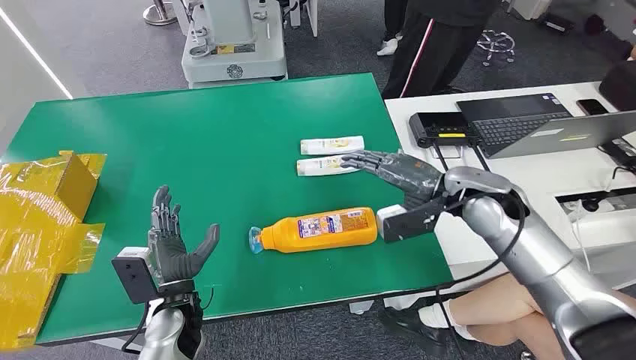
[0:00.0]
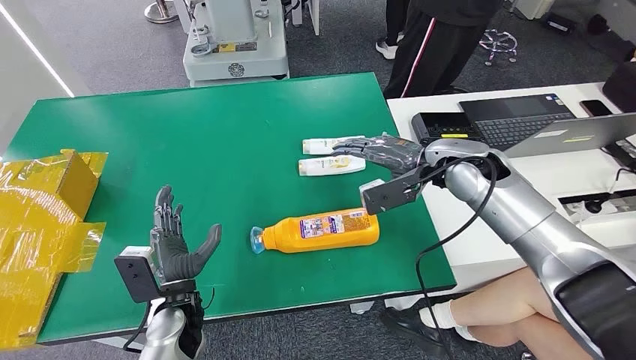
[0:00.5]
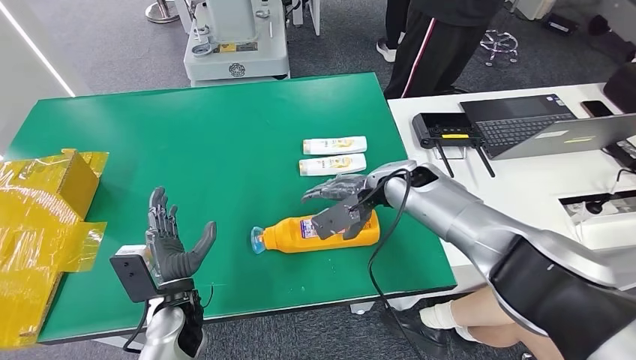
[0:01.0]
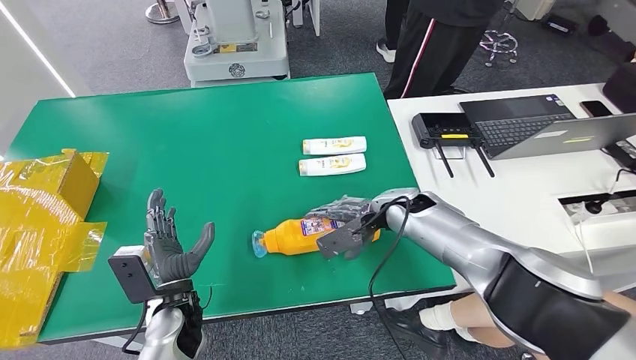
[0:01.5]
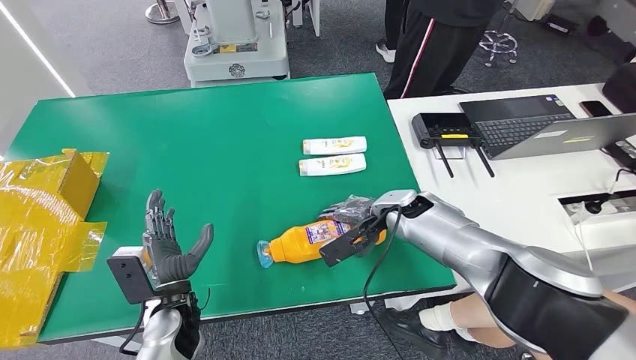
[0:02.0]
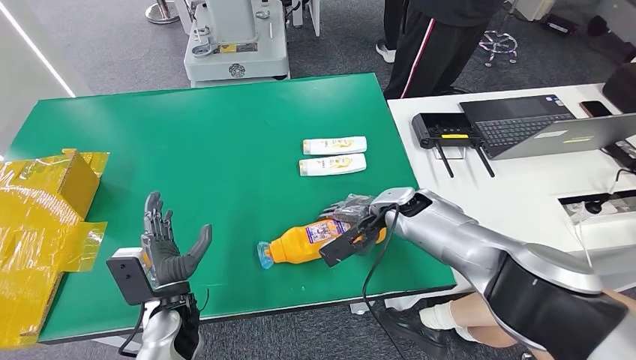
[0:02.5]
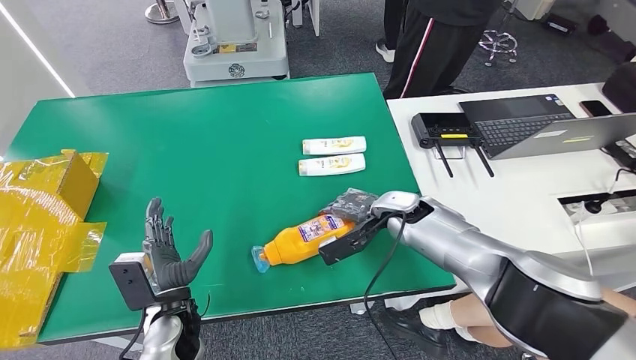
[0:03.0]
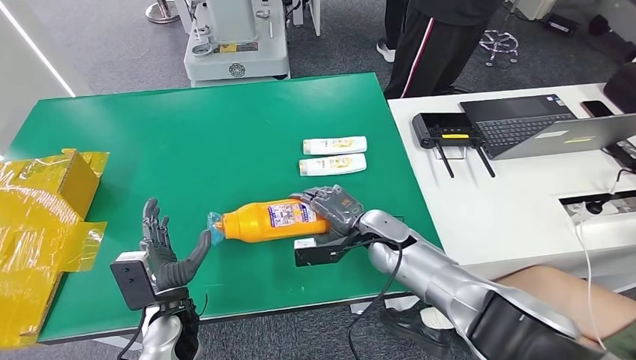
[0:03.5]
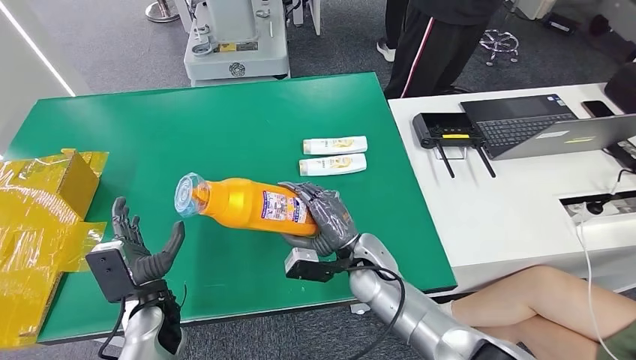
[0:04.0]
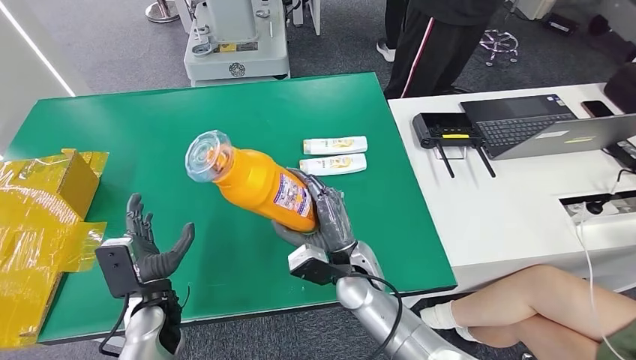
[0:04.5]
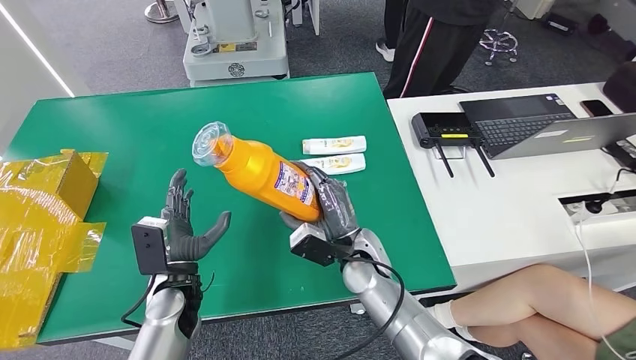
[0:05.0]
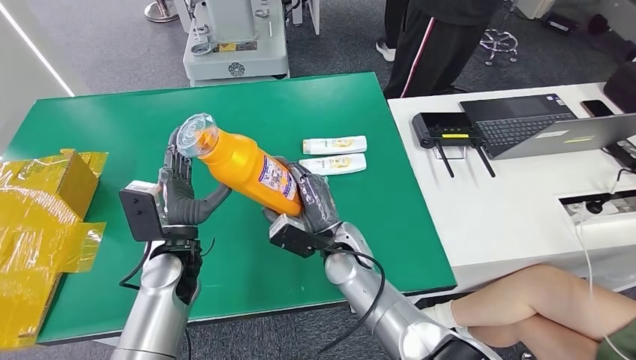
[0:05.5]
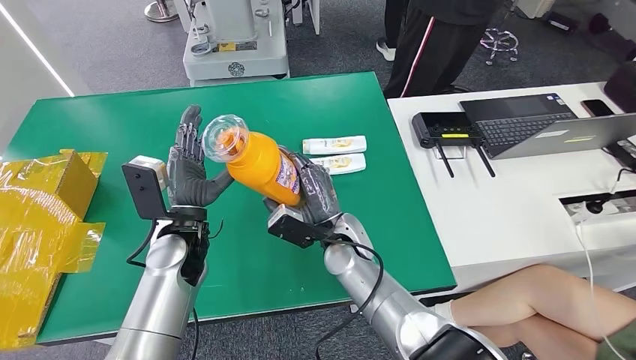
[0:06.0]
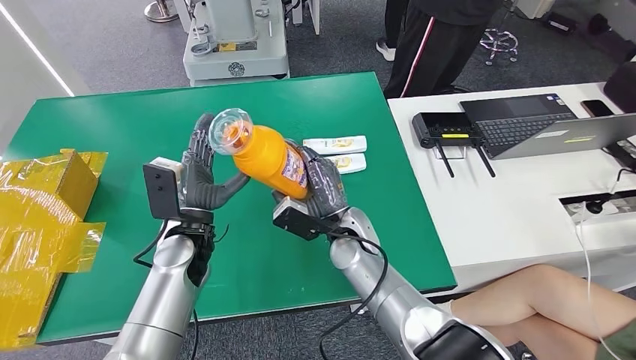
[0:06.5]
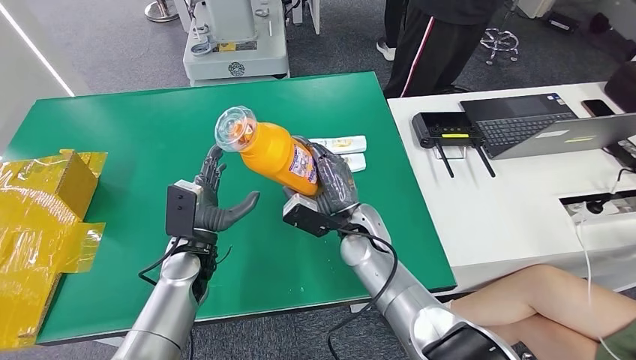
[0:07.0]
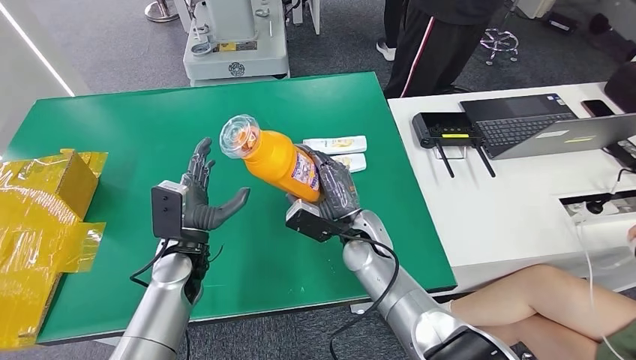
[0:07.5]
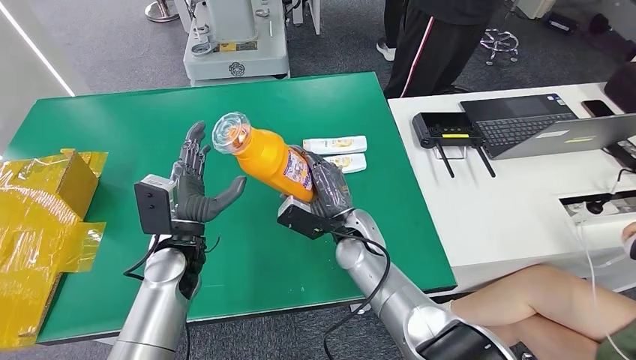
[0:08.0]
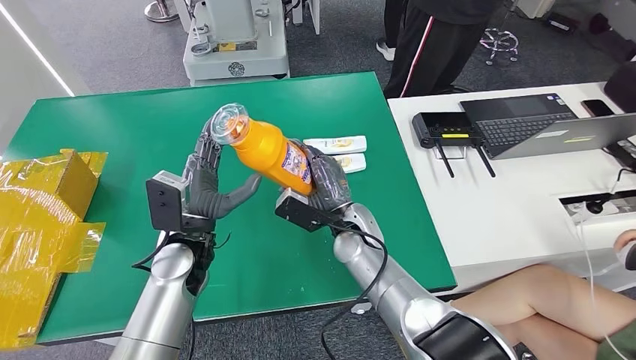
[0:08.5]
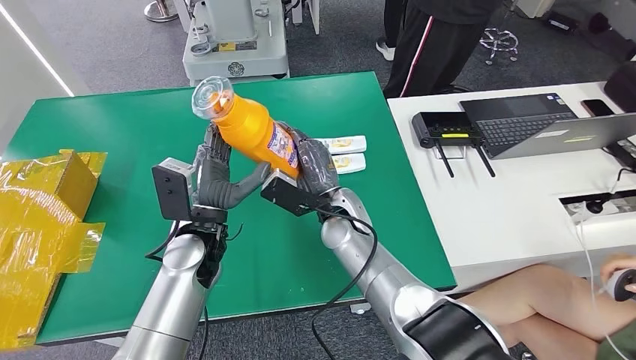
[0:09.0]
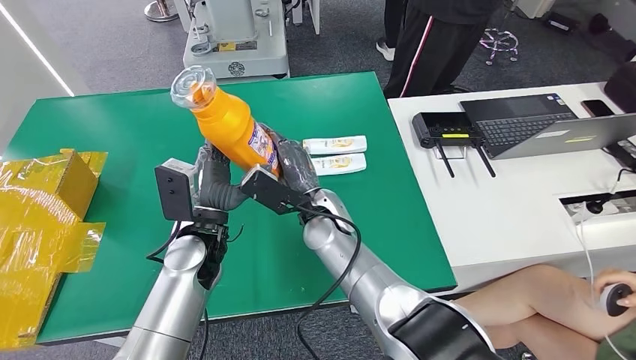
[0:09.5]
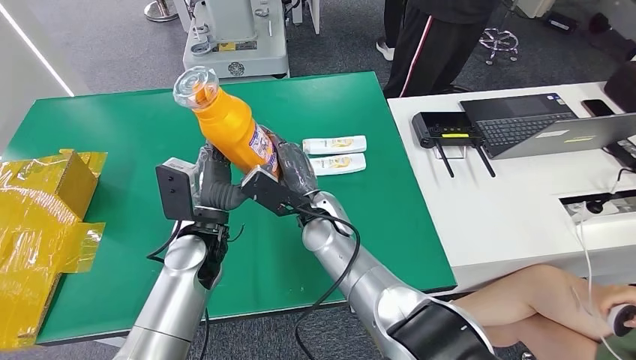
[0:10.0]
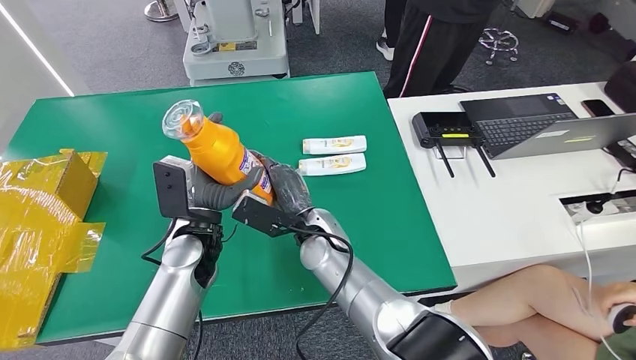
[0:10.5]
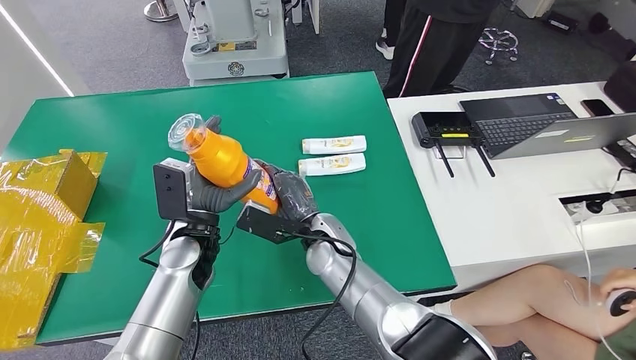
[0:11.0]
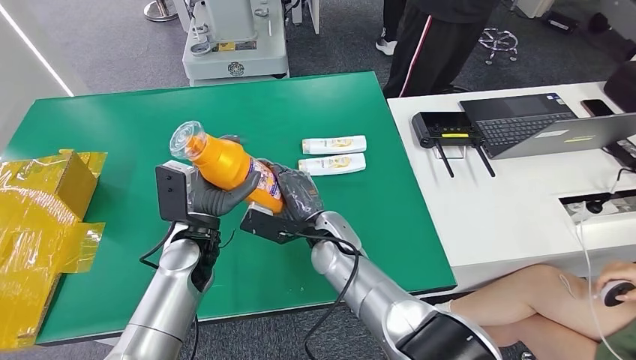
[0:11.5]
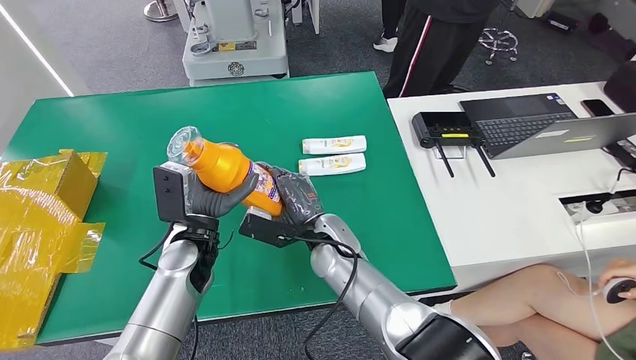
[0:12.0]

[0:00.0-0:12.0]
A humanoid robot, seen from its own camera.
Step, 0:00.0 to 0:03.5: Pick up the bottle from the table.
0:04.0 to 0:06.0: The left hand heads upward, to the right and forward, covering roughly 15 cm, while the right hand heads to the left, covering about 5 cm.
0:08.0 to 0:10.0: The right hand travels to the left by about 5 cm.
0:10.0 to 0:12.0: The right hand shifts by some 5 cm.

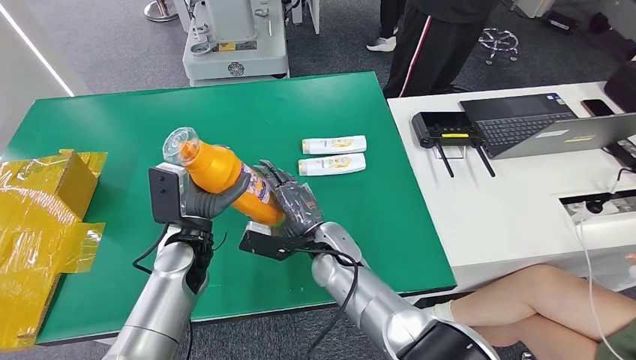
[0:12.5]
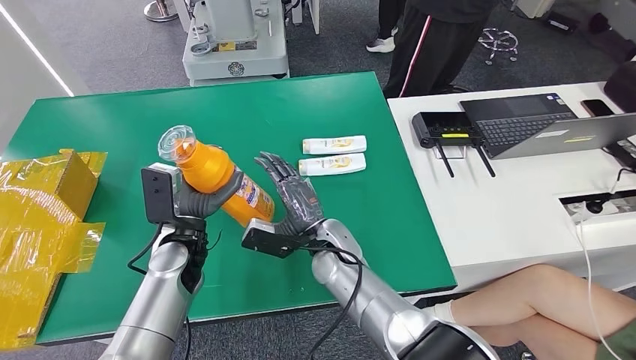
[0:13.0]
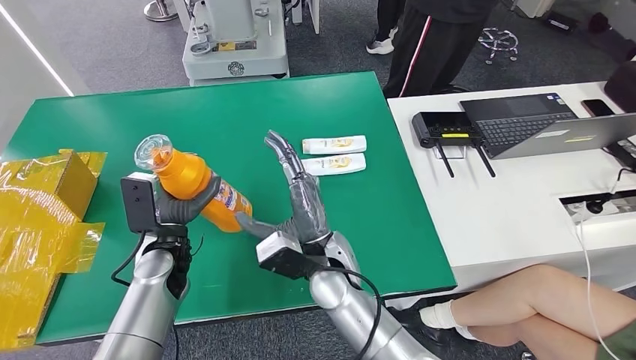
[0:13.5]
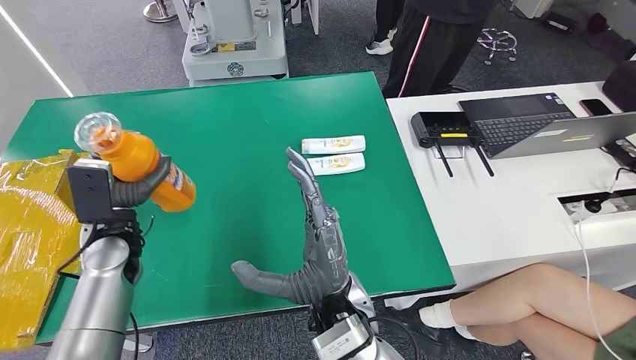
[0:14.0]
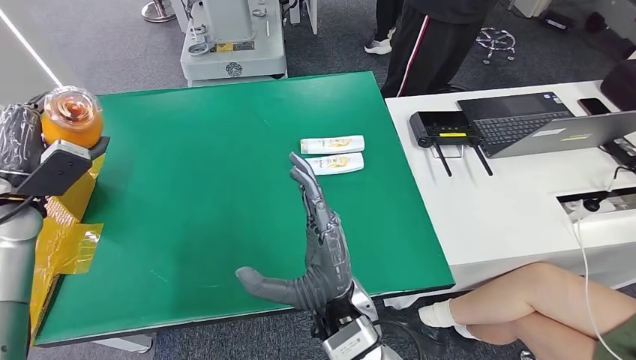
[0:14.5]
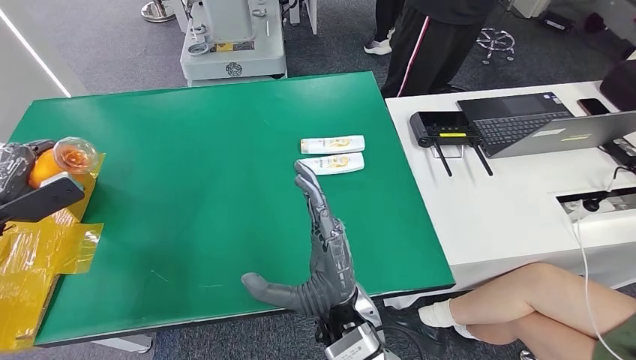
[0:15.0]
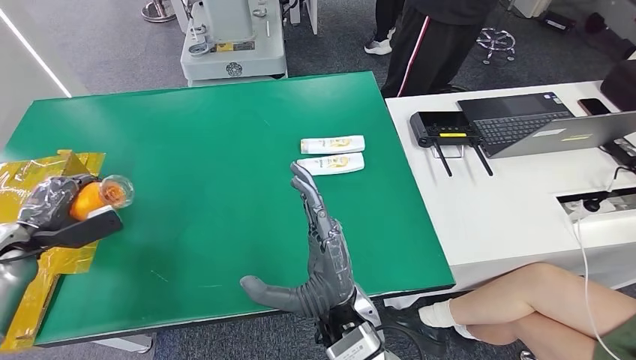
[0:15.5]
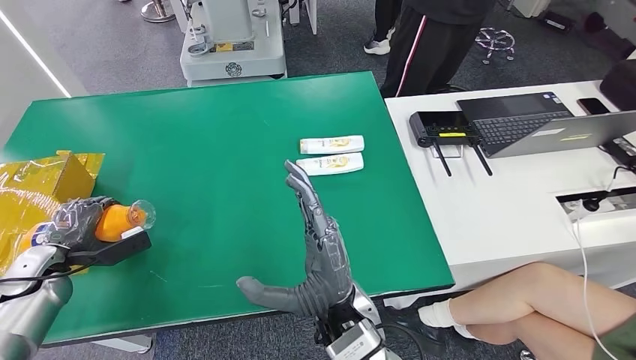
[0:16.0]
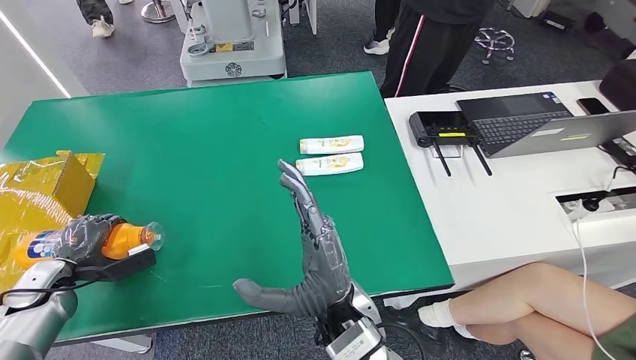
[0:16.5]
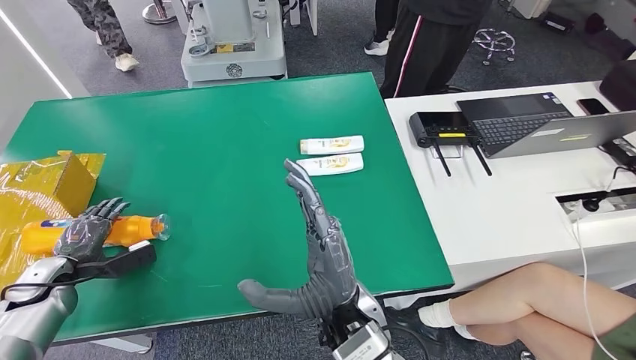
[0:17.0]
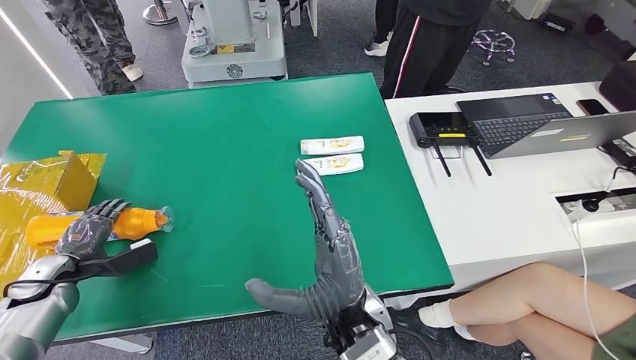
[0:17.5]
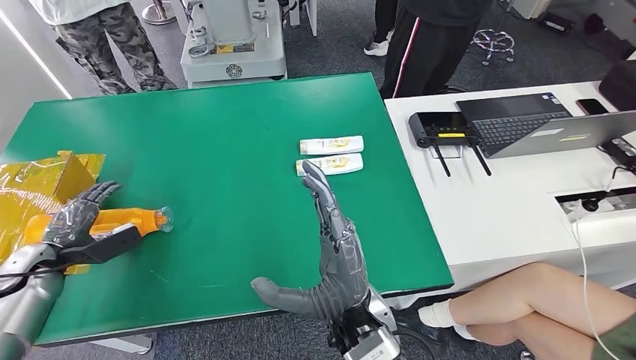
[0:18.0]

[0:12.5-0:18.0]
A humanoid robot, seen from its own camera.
Step, 0:12.5 to 0:18.0: Turn the bottle to the front side.
0:14.5 to 0:16.0: The left hand travels downward and to the left by approximately 15 cm.
0:16.0 to 0:18.0: The hands stay close to where they were, moving slightly.
